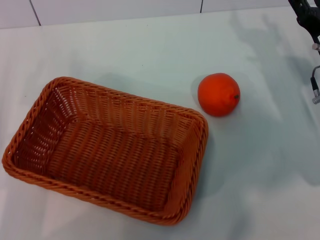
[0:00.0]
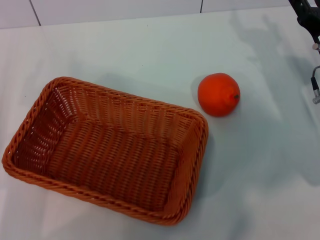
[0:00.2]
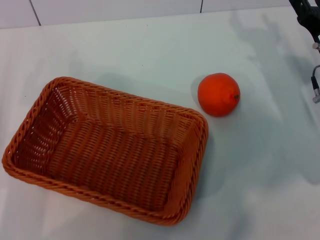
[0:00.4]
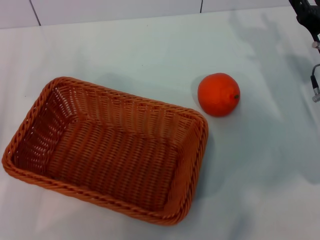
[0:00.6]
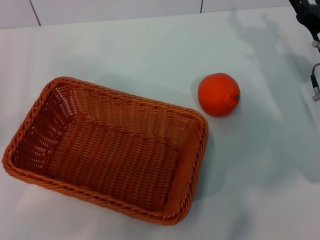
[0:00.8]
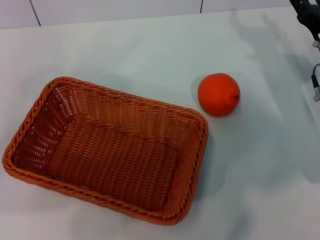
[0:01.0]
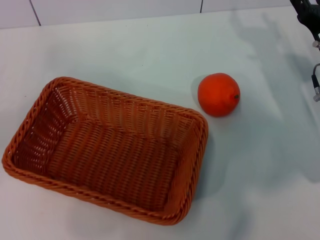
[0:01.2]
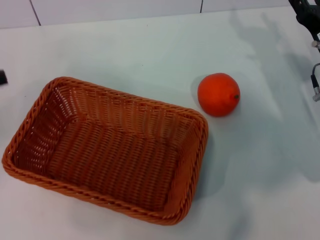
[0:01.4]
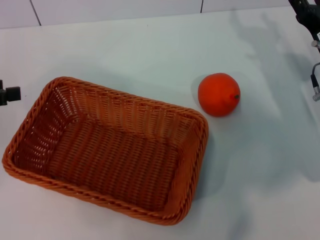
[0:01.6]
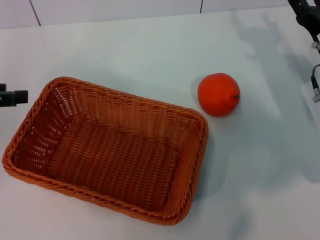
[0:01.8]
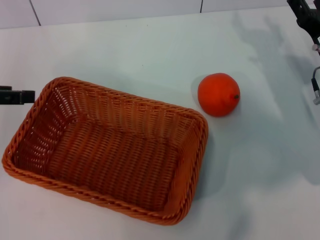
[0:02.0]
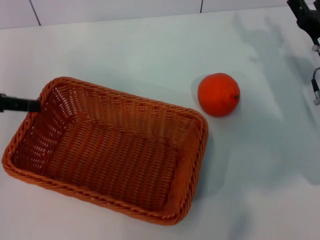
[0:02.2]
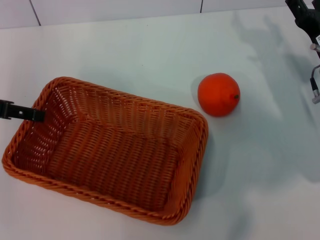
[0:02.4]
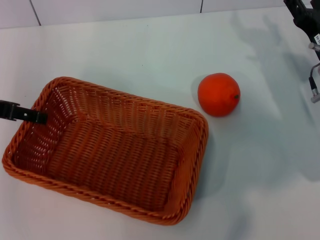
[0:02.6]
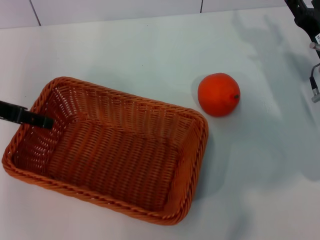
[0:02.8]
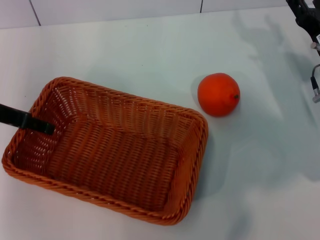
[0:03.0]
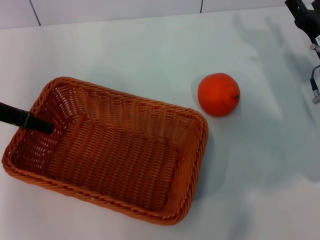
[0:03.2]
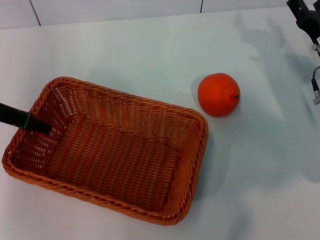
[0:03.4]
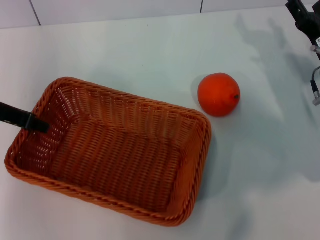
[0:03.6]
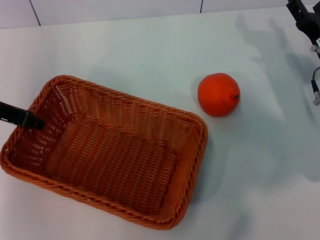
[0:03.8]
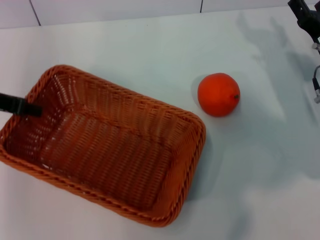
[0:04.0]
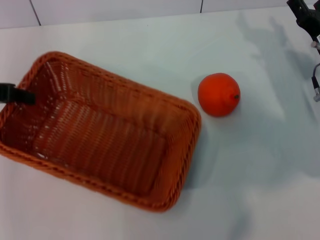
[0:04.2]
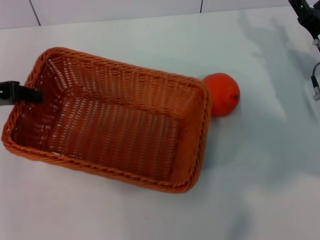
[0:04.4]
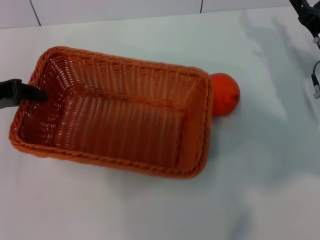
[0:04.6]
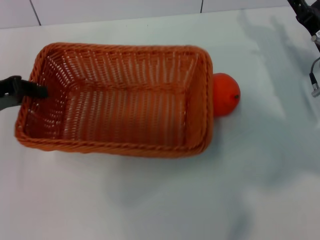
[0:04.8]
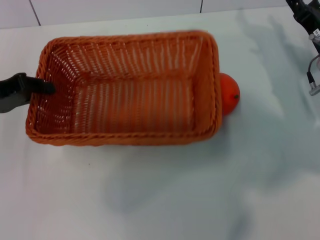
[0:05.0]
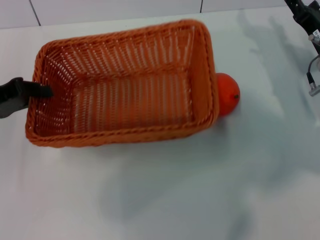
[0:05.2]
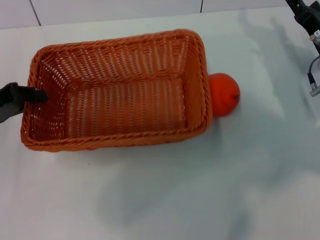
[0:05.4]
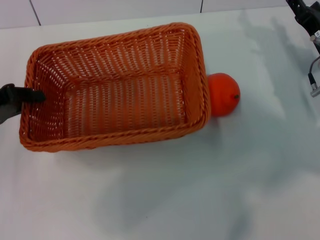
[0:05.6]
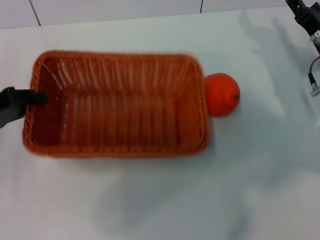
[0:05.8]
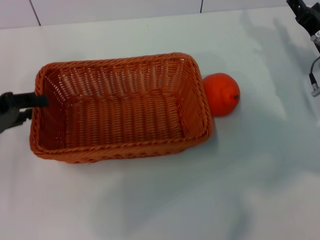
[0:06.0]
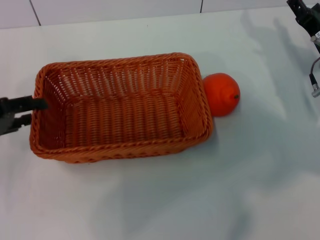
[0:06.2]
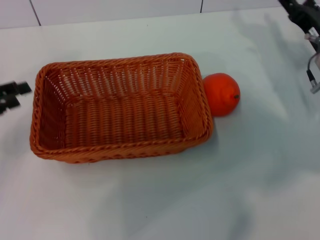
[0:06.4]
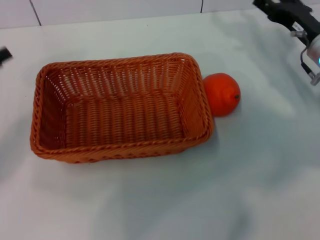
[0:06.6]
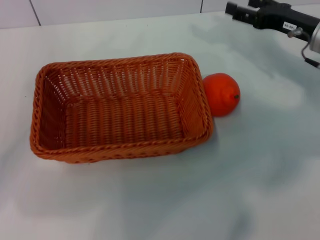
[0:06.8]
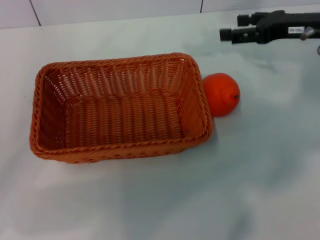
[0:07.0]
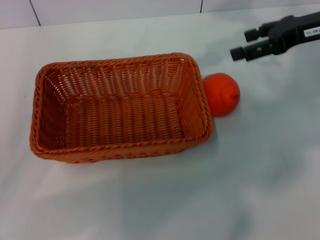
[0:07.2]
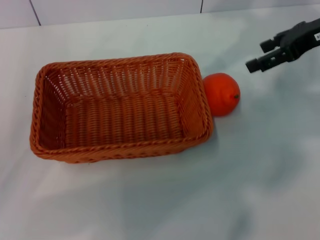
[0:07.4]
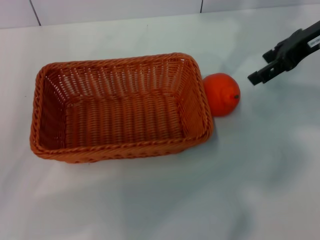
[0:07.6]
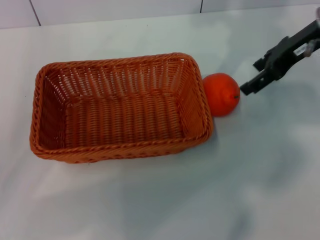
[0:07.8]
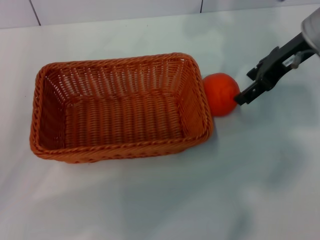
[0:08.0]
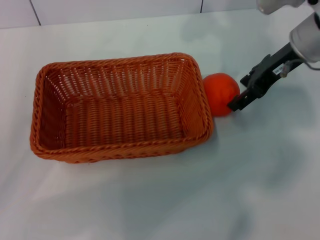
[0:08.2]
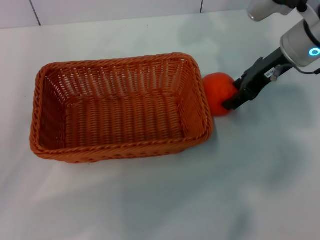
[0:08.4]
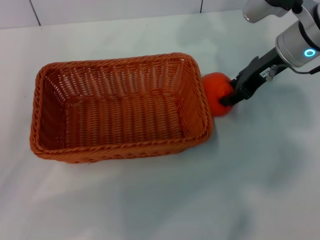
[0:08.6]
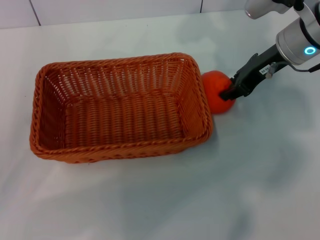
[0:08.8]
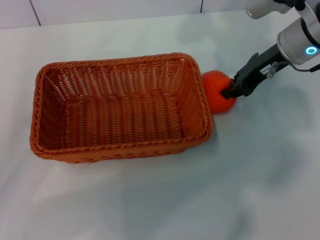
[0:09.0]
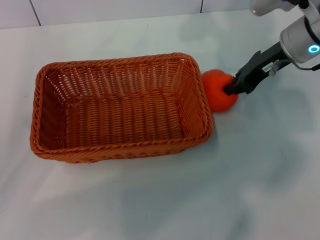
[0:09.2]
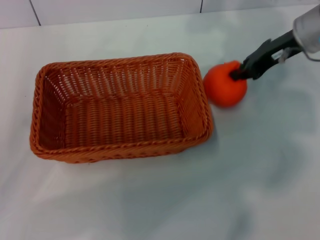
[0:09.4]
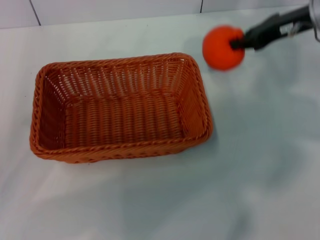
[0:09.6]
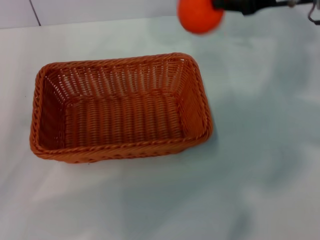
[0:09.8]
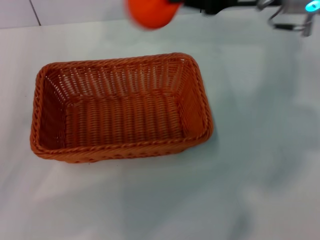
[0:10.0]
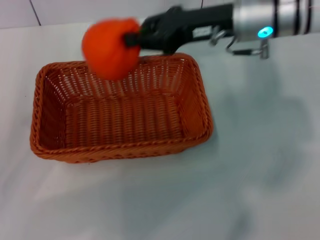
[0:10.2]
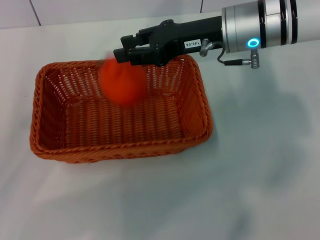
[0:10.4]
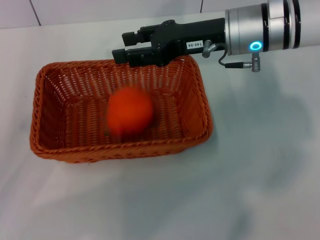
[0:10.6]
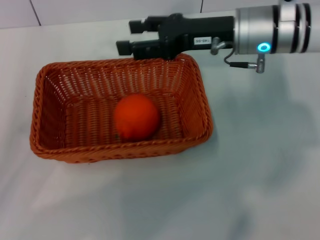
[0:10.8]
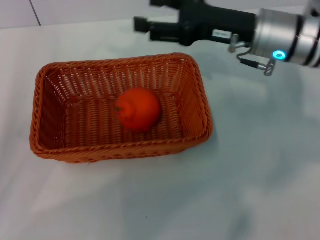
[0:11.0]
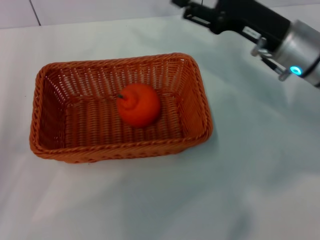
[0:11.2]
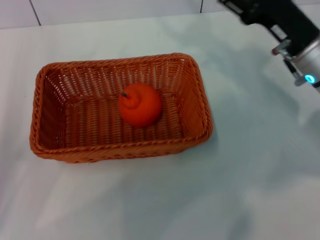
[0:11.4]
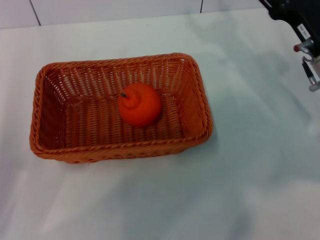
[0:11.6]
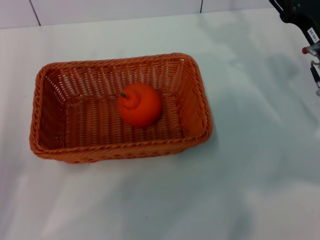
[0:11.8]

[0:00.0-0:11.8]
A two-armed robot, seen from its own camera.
Task of the whole recording: the left gripper pick up the yellow basket and place it horizontally in the middle of the table, the right gripper pick up the orange and place it into the yellow basket.
Step, 0:00.0 to 0:04.2: Pick up the light basket with the left gripper.
Step, 0:04.4 to 0:06.2: Place the light basket in the center of view with the left gripper.
Step, 0:06.4 to 0:09.4: Pick up the orange with the right gripper.
Step, 0:09.6 to 0:10.6: Place the orange into the light basket with the right gripper.
0:00.0 to 0:01.4: The left gripper heads upward, forward and to the left, covering approximately 15 cm.
0:01.4 to 0:03.0: The left gripper travels to the right and forward by approximately 10 cm.
0:03.0 to 0:04.4: The left gripper closes its fingers.
0:04.4 to 0:06.0: The left gripper heads downward, covering roughly 5 cm.
0:06.0 to 0:07.4: The left gripper heads backward, covering about 5 cm, and opens its fingers. The right gripper heads upward, covering approximately 15 cm.
0:07.4 to 0:08.8: The right gripper travels to the left and downward by about 10 cm, and closes.
0:08.8 to 0:10.4: The right gripper moves to the left, roughly 5 cm, and closes up.
0:10.4 to 0:11.8: The left gripper moves roughly 5 cm. Meanwhile the right gripper goes some 15 cm to the right, downward and backward, and opens its fingers.
